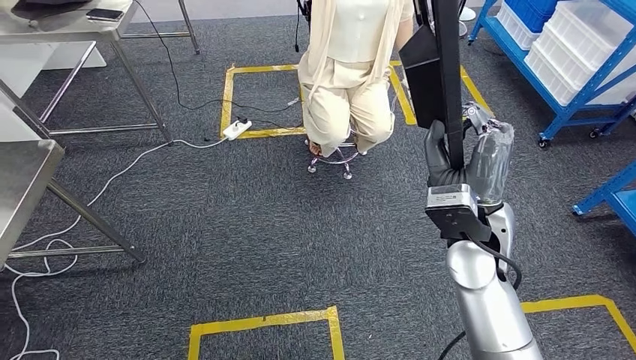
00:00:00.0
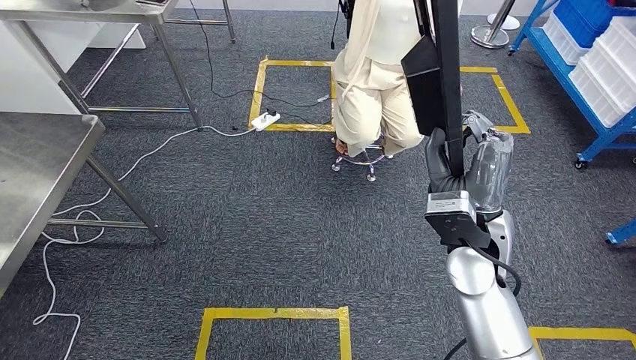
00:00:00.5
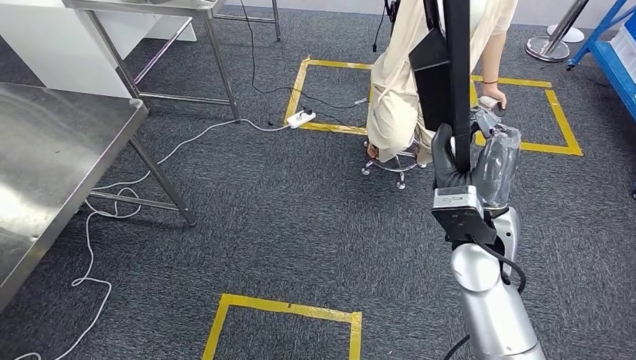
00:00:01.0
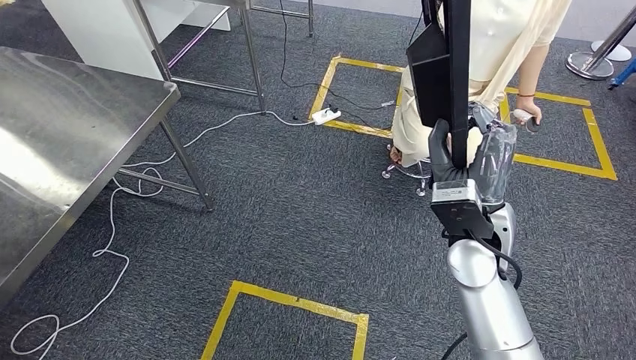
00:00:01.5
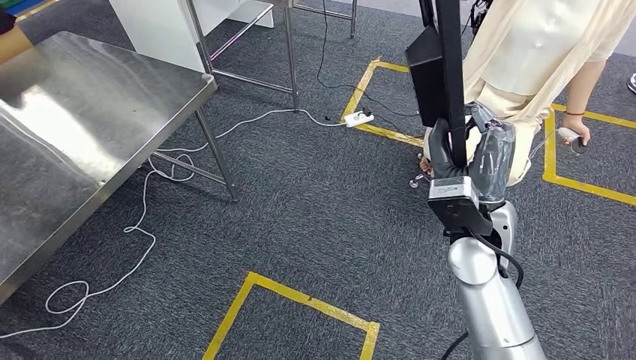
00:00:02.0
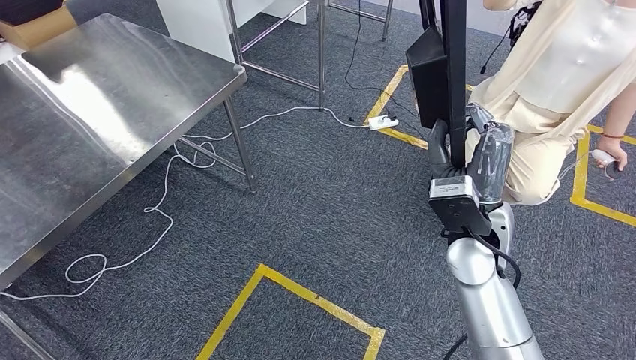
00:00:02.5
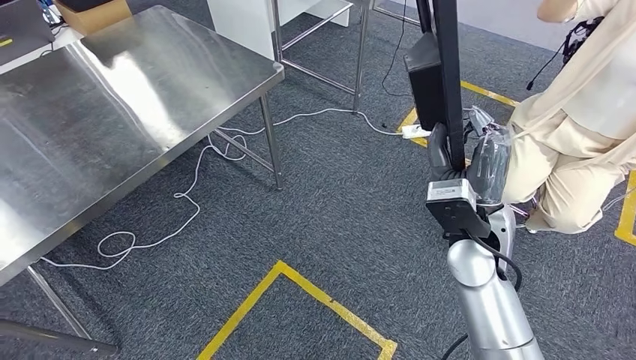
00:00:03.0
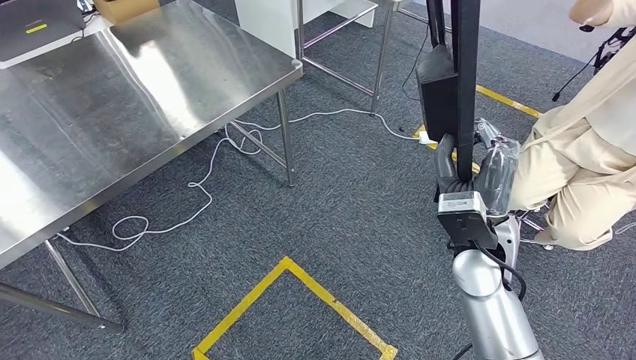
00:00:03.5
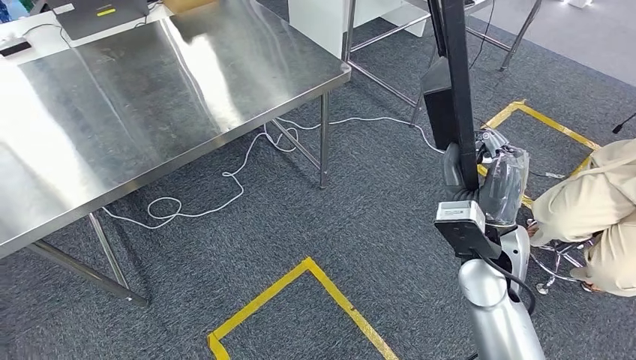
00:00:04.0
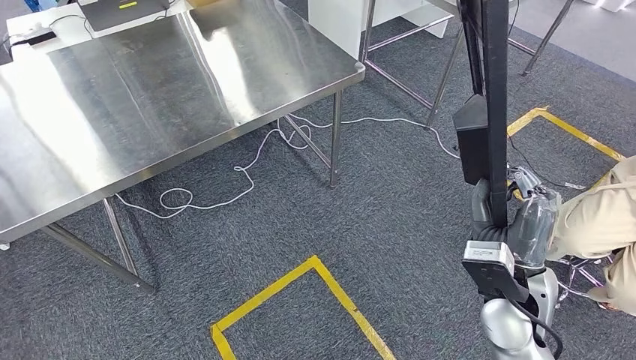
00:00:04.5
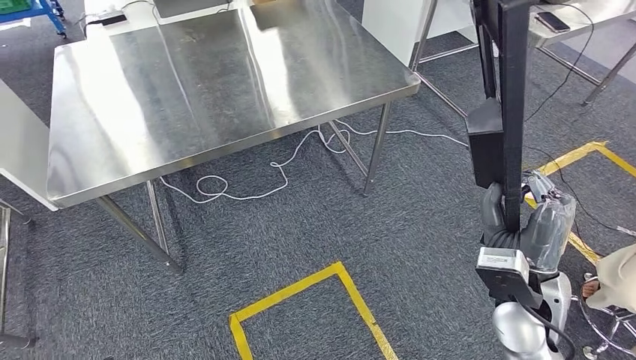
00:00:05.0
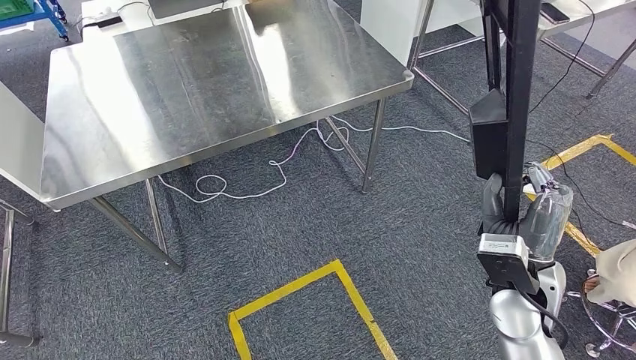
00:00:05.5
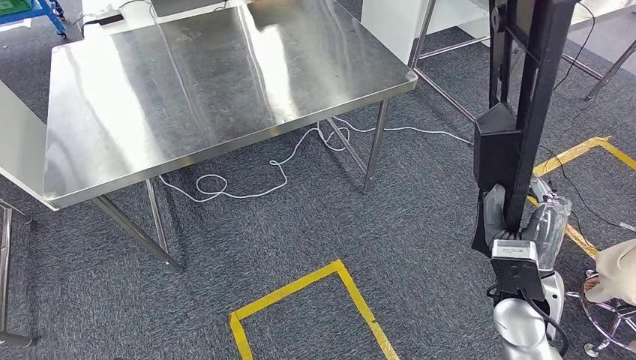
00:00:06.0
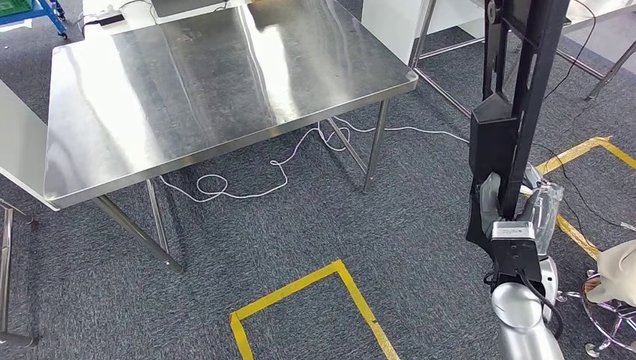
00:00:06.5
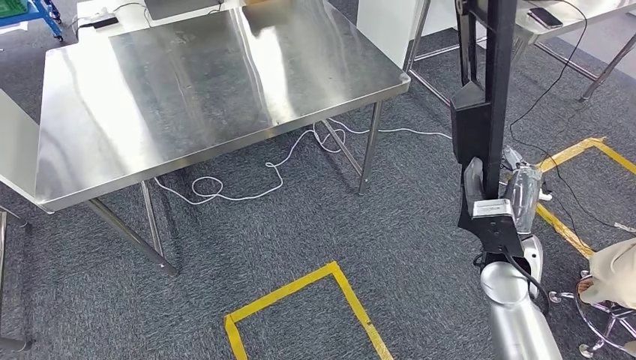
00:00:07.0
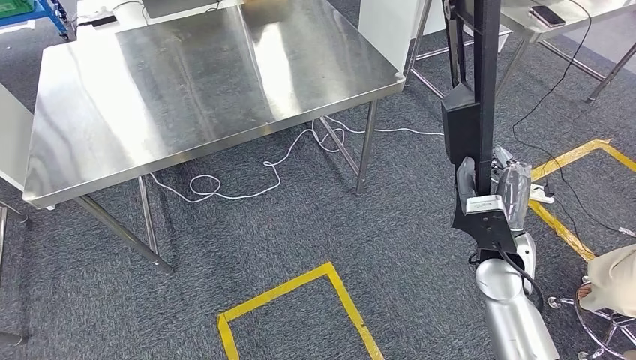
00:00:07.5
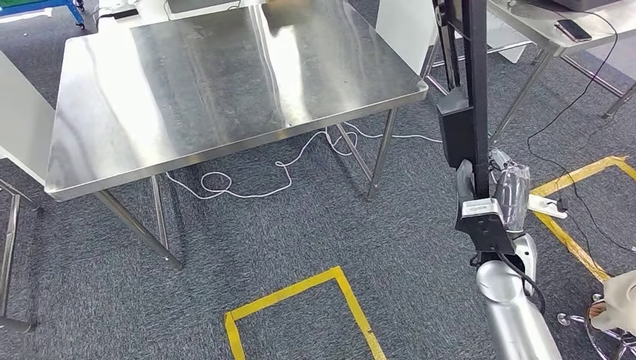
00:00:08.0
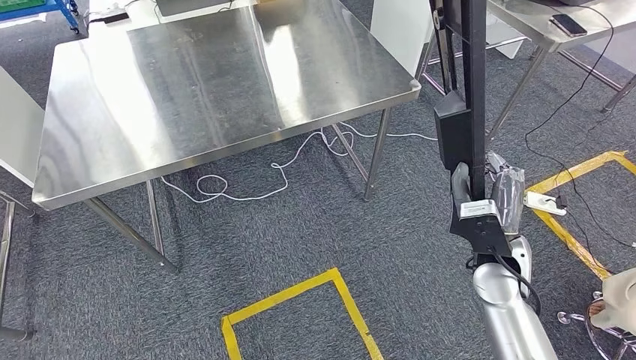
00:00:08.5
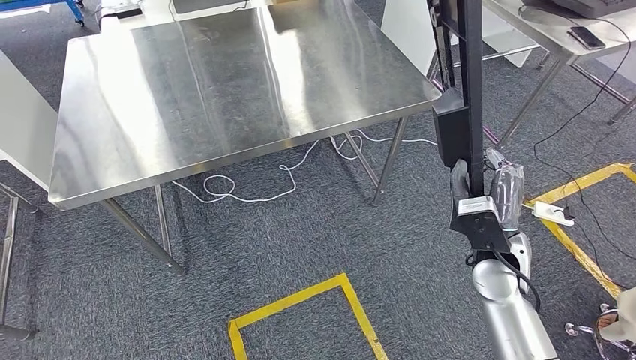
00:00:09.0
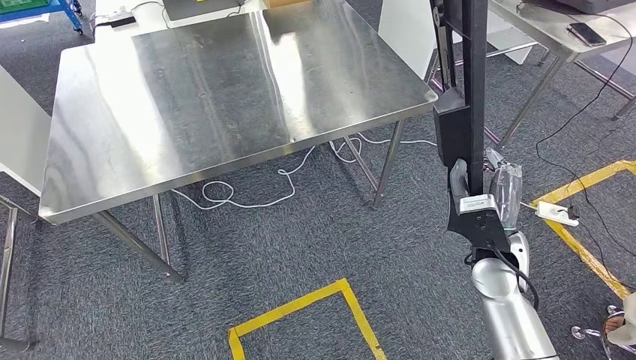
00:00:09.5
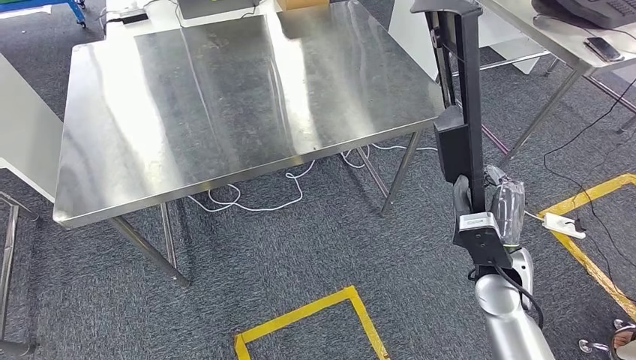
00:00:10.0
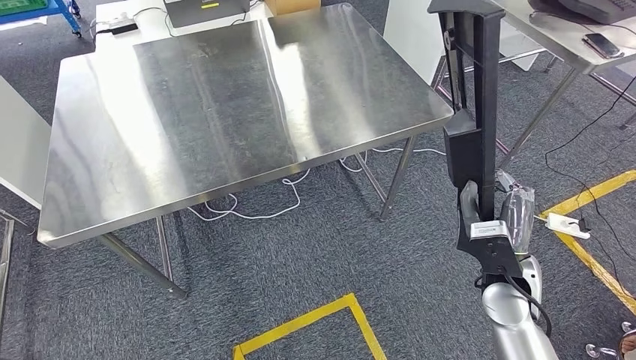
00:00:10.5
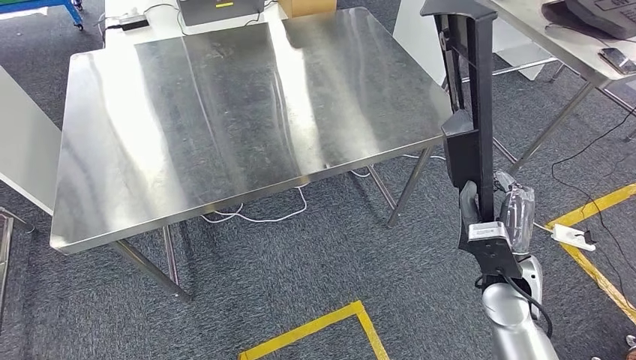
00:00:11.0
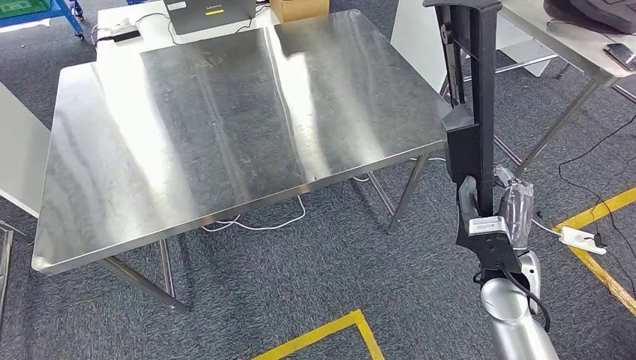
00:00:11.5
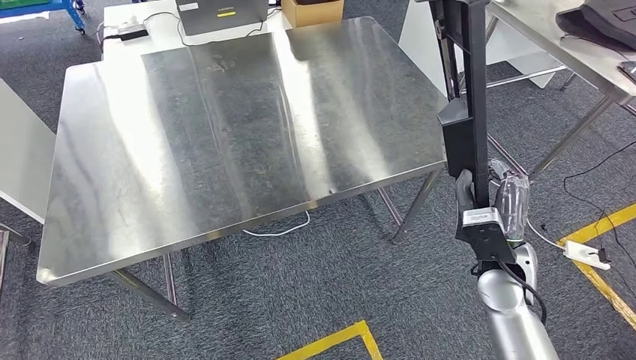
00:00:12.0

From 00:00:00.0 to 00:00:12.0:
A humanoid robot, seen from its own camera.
Step, from 00:00:00.0 to 00:00:07.0: Move the large material to the workbench.

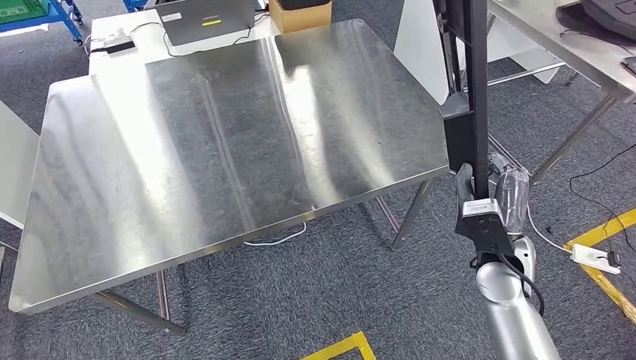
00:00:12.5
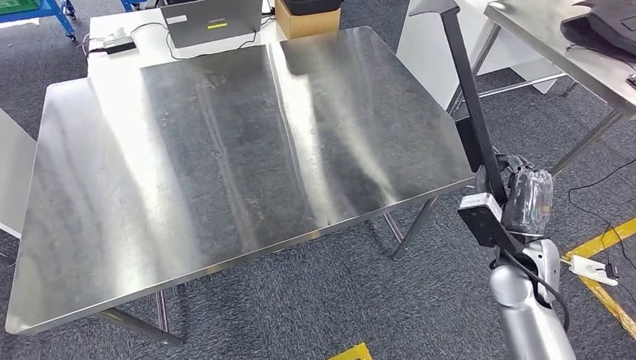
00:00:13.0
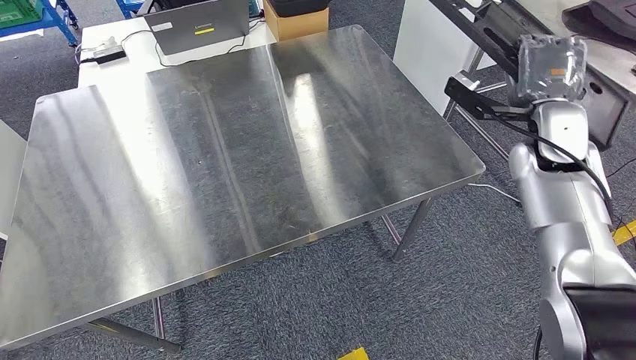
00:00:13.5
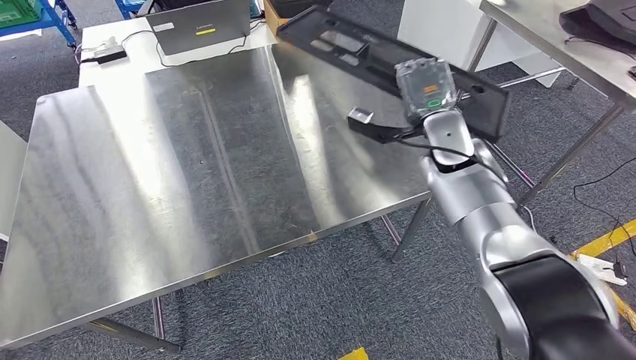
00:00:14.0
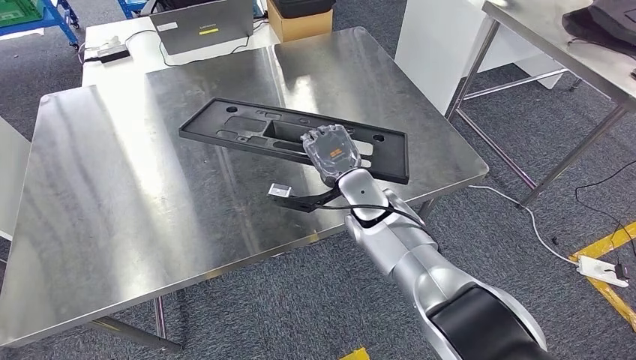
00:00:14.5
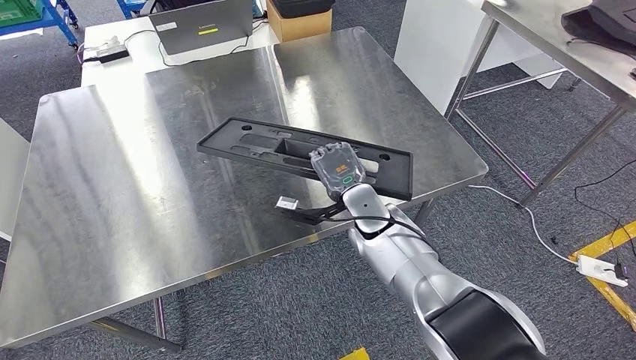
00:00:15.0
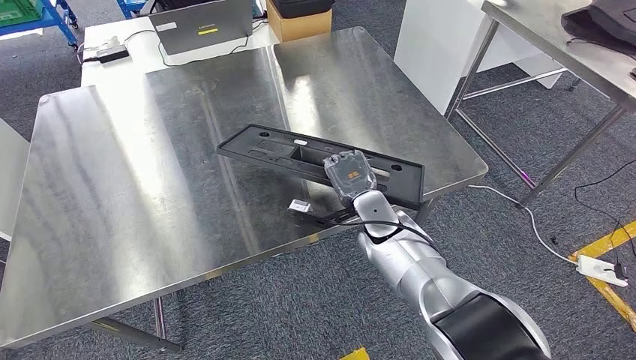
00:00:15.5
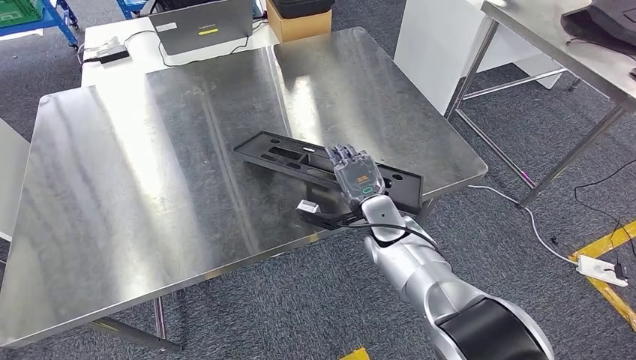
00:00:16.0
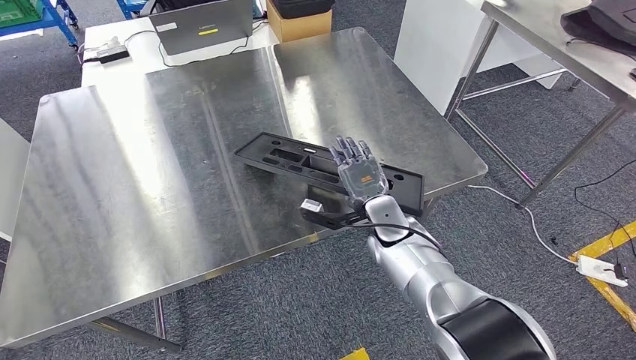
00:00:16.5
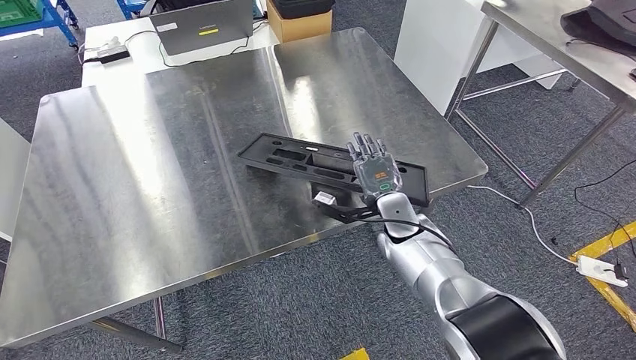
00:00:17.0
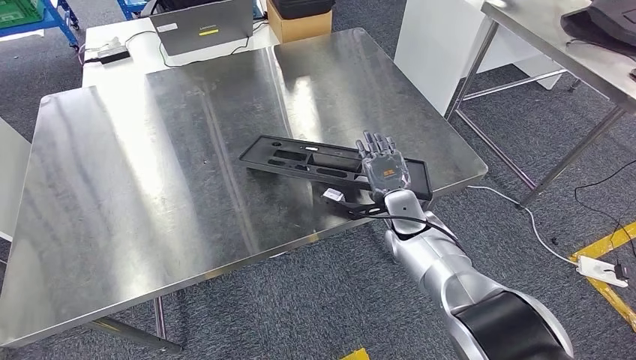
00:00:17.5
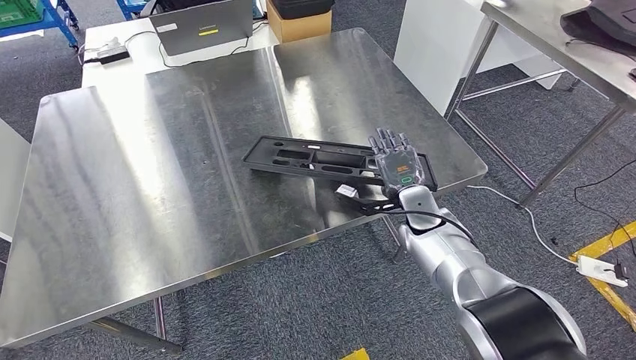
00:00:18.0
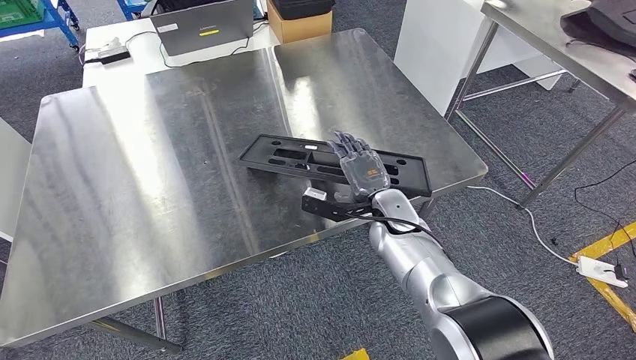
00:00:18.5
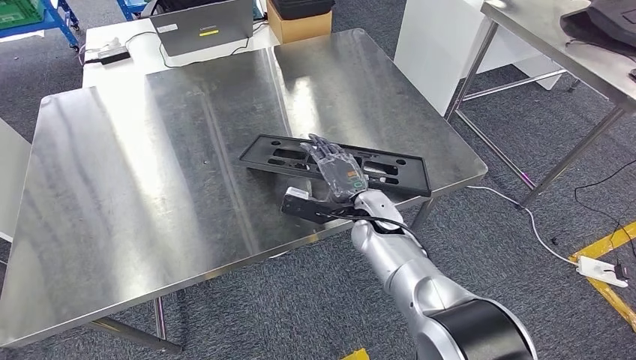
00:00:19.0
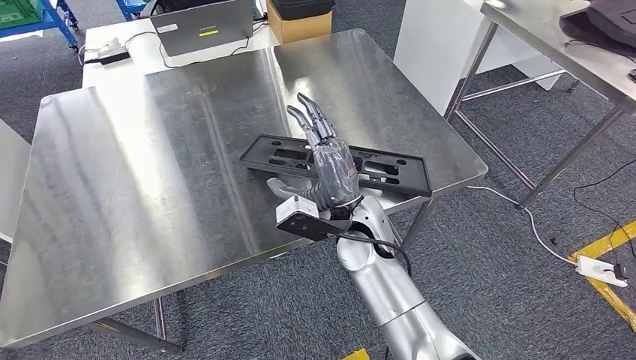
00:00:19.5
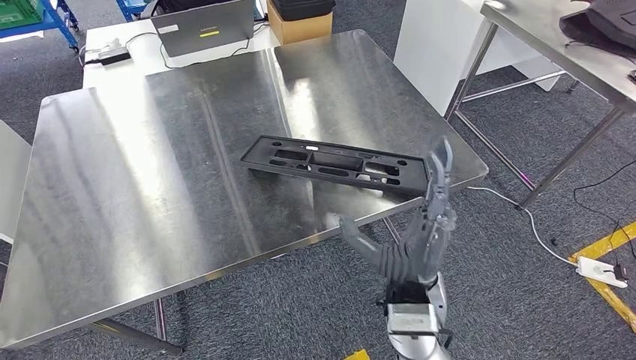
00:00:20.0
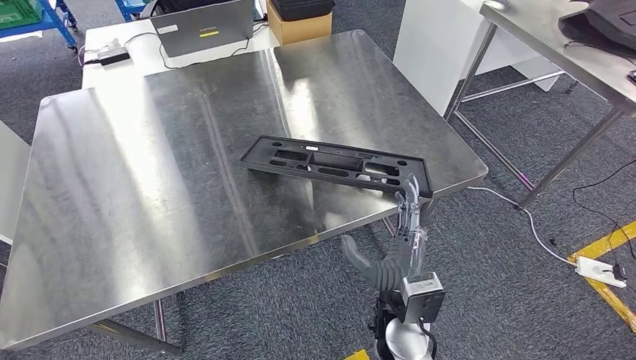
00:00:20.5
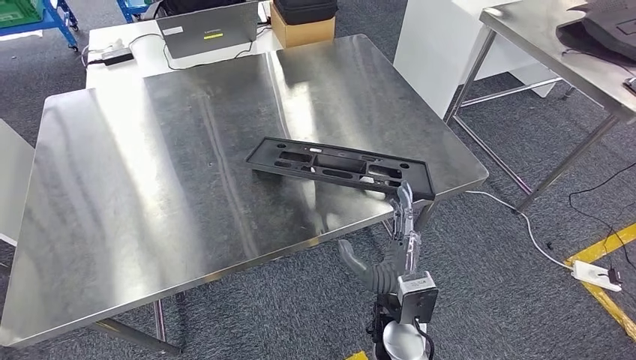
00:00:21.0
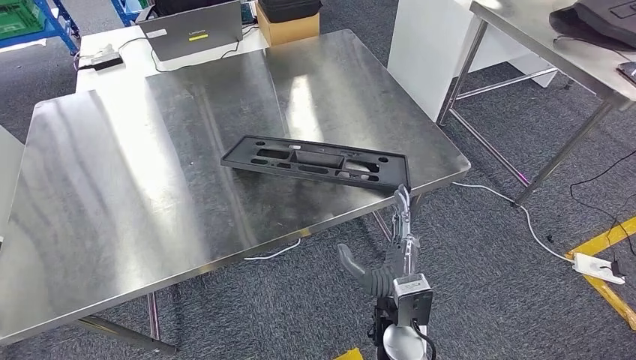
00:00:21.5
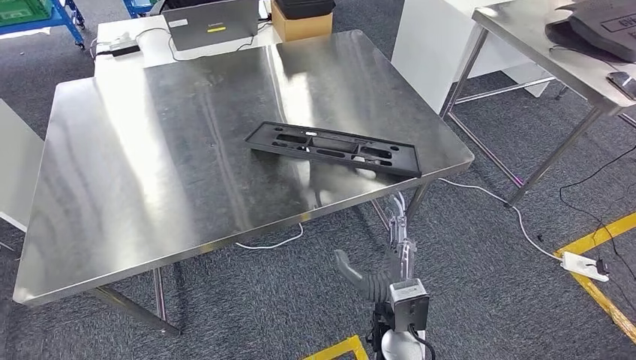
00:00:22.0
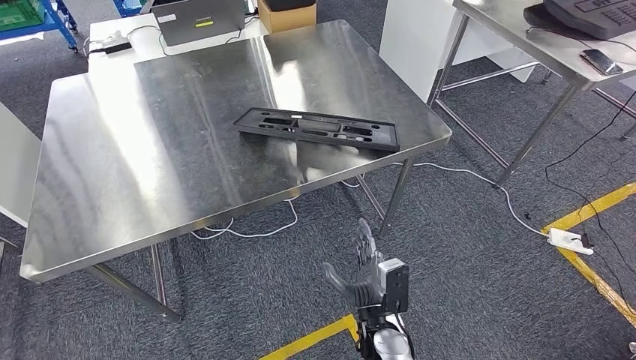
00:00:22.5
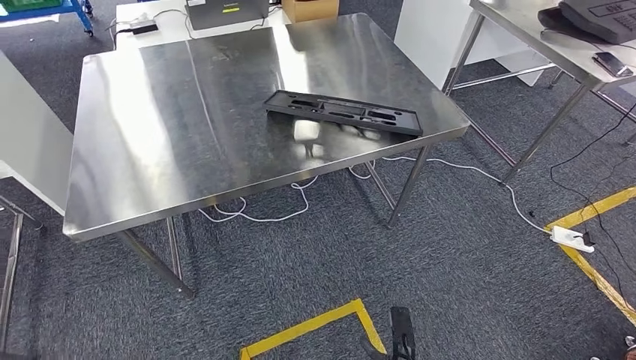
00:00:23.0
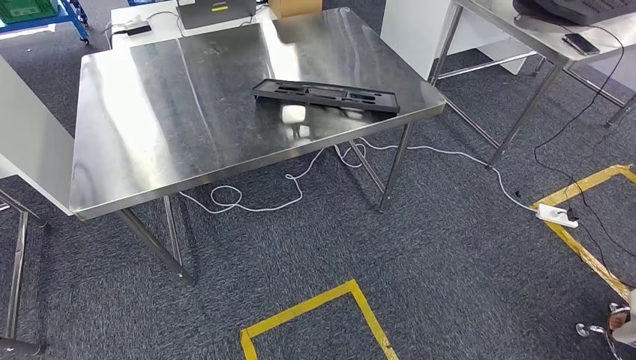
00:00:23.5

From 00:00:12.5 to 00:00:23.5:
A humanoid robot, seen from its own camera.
Step, from 00:00:12.5 to 00:00:16.0: Insert the large material into the corresponding slot on the workbench.
From 00:00:14.5 to 00:00:16.0: The right hand heads downward, covering roughly 5 cm.
From 00:00:16.0 to 00:00:18.0: The right hand shifts approximately 5 cm to the right.
From 00:00:18.0 to 00:00:20.0: The right hand travels backward and to the left by approximately 20 cm.
From 00:00:20.0 to 00:00:21.5: The right hand is displaced downward by about 10 cm.
